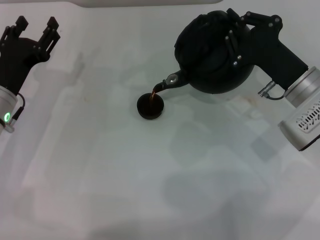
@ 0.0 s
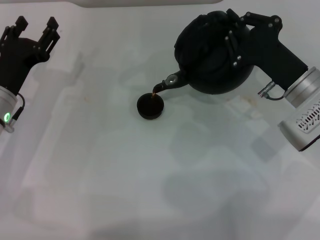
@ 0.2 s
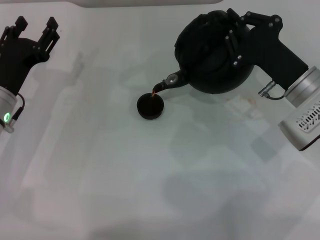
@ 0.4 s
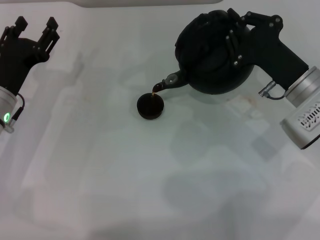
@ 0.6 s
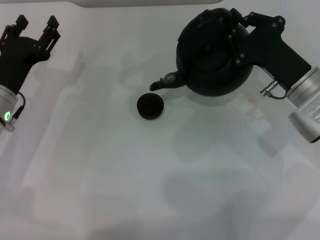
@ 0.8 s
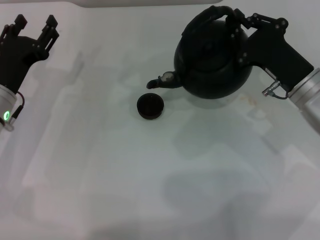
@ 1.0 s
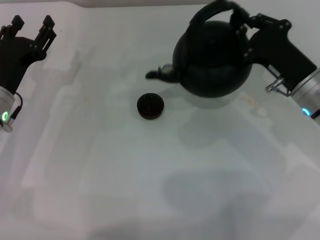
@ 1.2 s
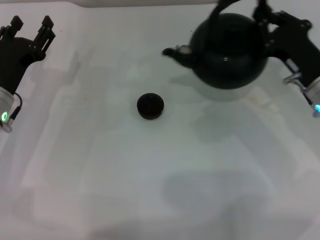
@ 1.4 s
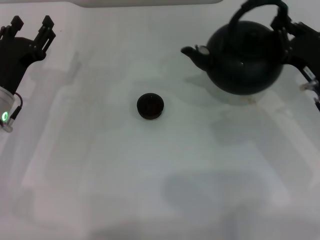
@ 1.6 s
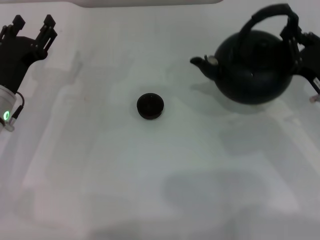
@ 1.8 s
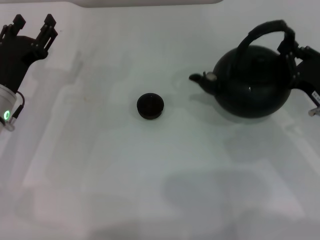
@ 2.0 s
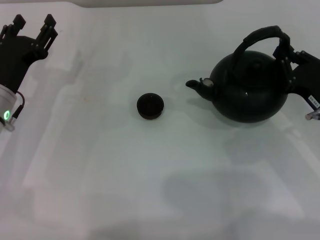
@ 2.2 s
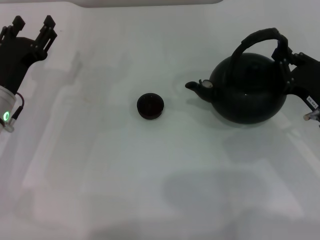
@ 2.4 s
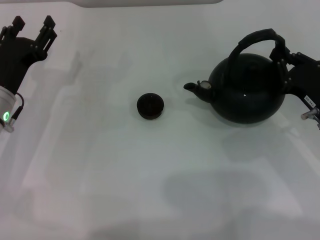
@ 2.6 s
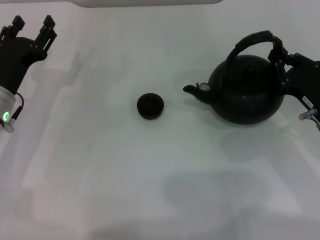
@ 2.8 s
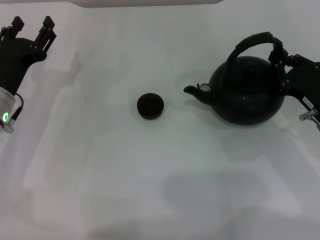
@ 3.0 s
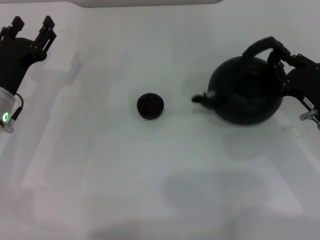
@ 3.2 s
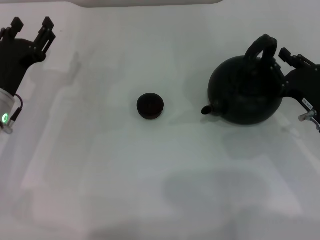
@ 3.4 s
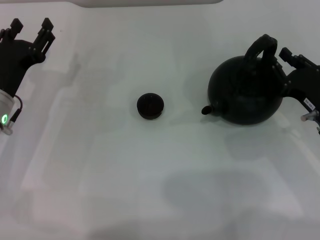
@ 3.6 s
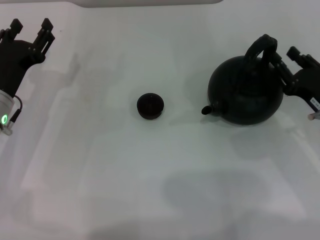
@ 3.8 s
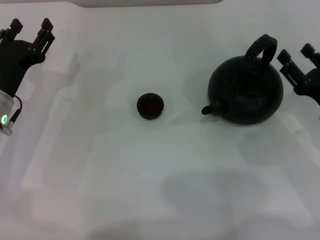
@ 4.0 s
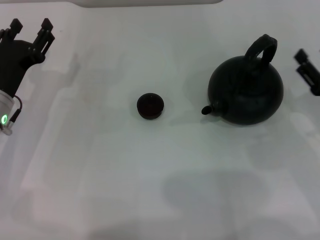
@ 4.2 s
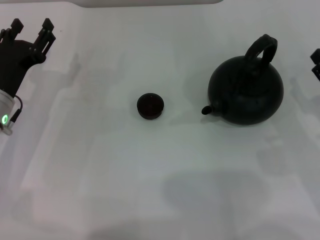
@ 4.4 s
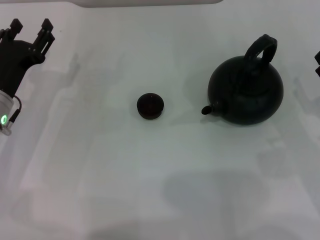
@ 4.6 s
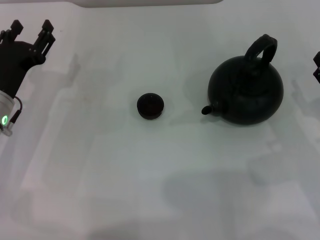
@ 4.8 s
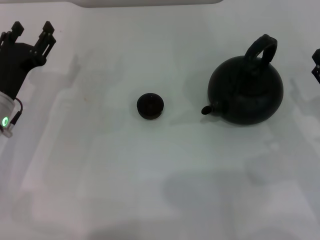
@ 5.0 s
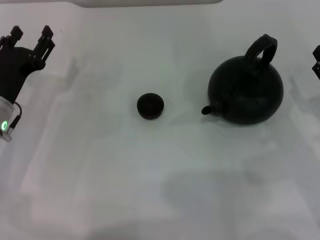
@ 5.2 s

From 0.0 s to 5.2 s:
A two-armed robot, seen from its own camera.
Task of the whole recording: Grasp the handle of the teapot with one hand and pour tea into the teacup.
Step, from 1.4 s to 3.8 s: Put down the teapot with the right gripper.
From 0.0 s to 1.8 s: The right gripper is displaced to the right by approximately 5 cm.
From 1.8 s to 3.4 s: There are only small adjustments of the grippers.
From 3.4 s to 5.2 s: The right gripper moves about 5 cm, and opens.
